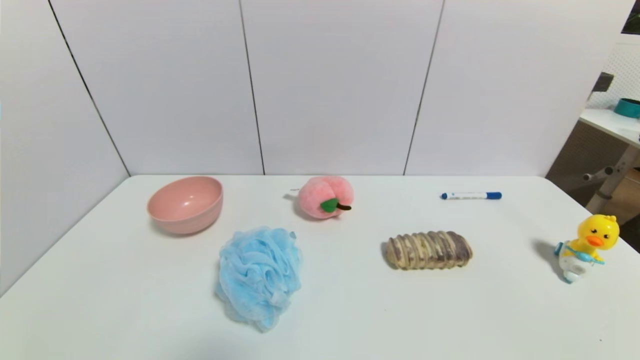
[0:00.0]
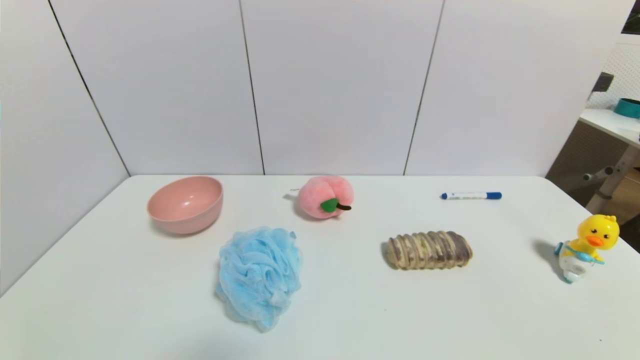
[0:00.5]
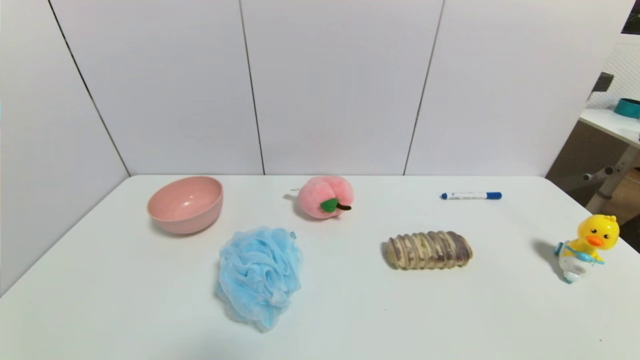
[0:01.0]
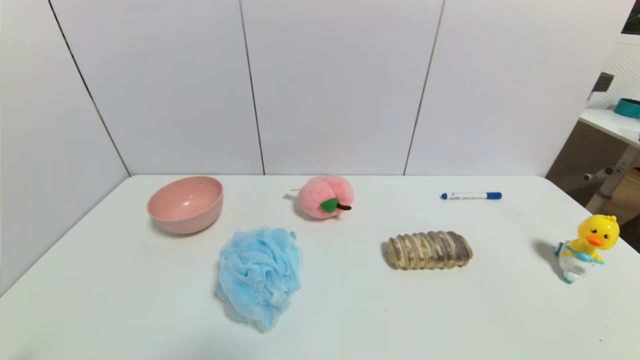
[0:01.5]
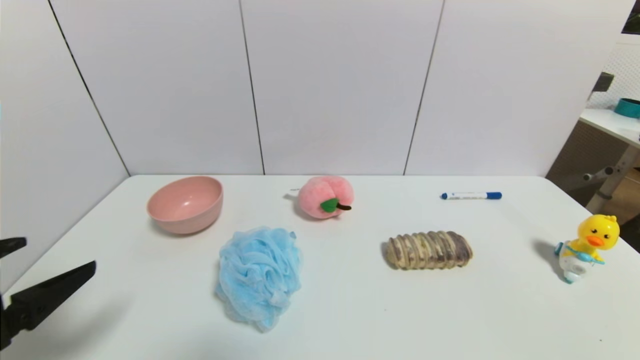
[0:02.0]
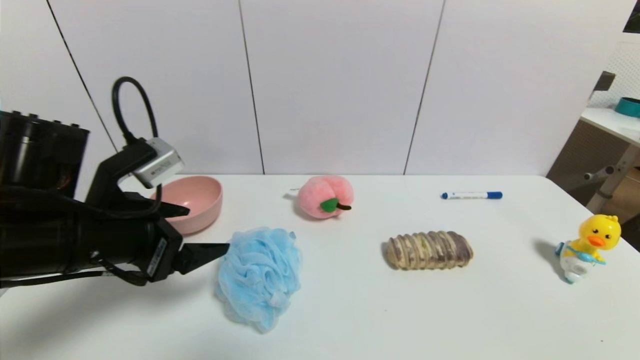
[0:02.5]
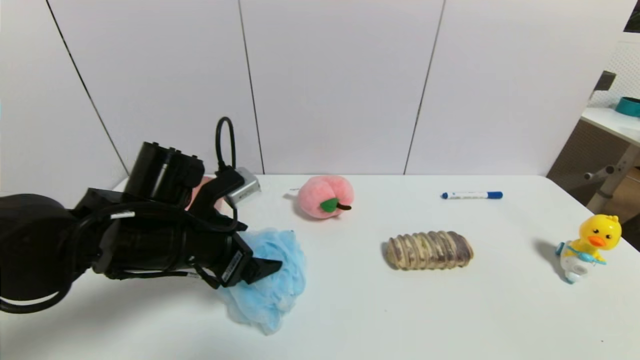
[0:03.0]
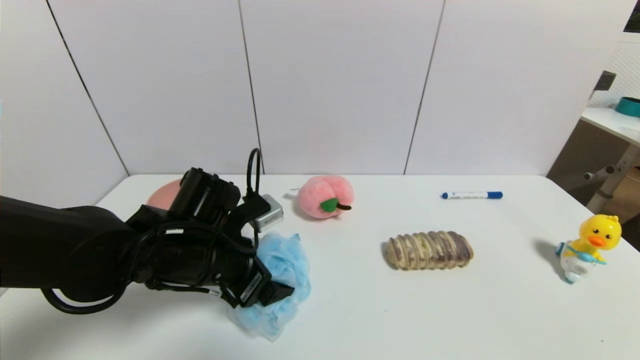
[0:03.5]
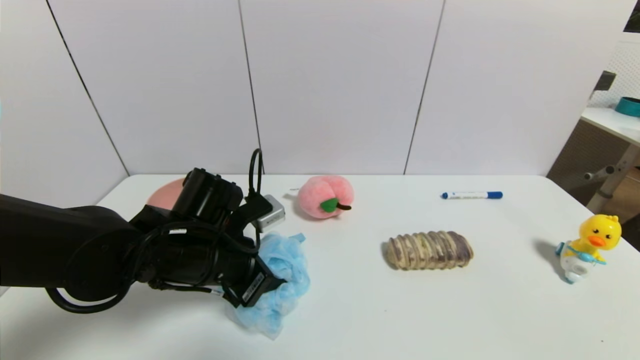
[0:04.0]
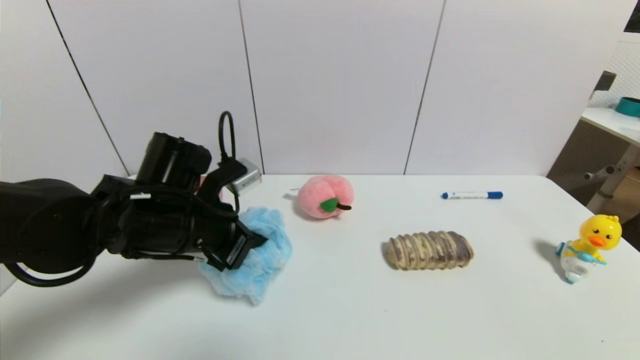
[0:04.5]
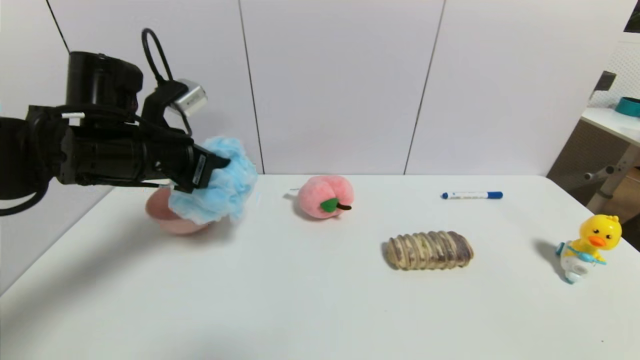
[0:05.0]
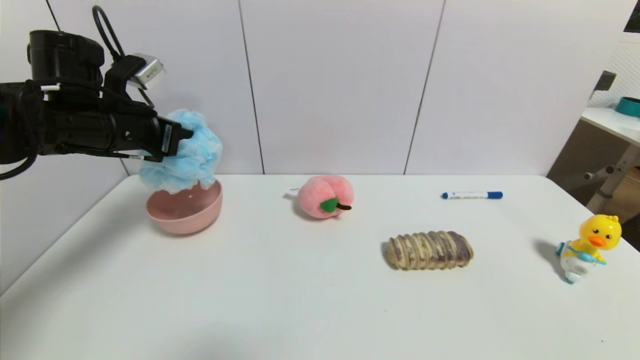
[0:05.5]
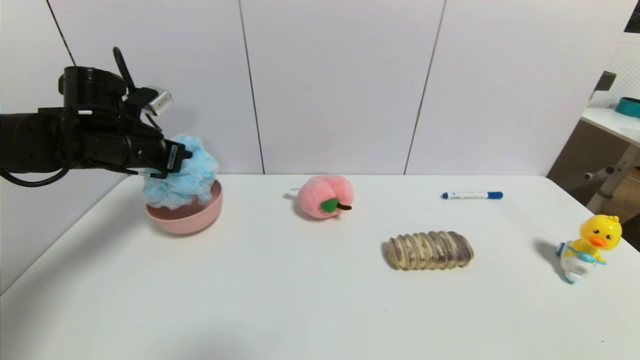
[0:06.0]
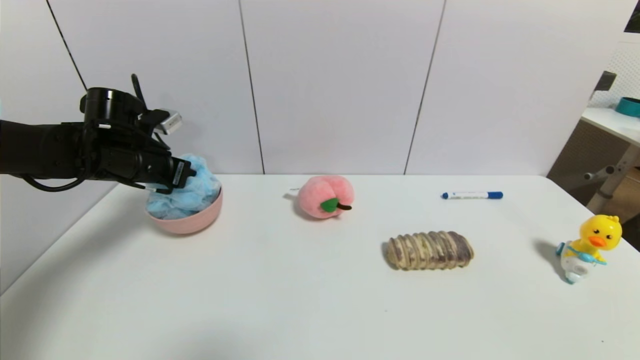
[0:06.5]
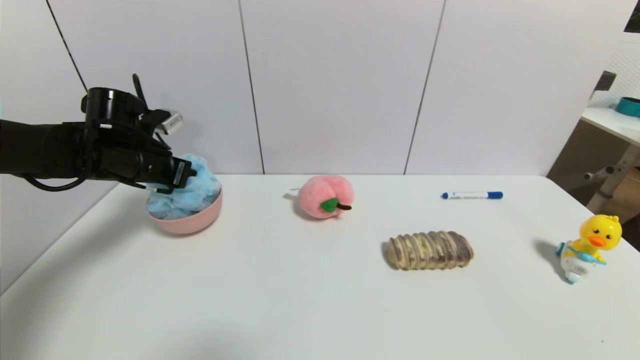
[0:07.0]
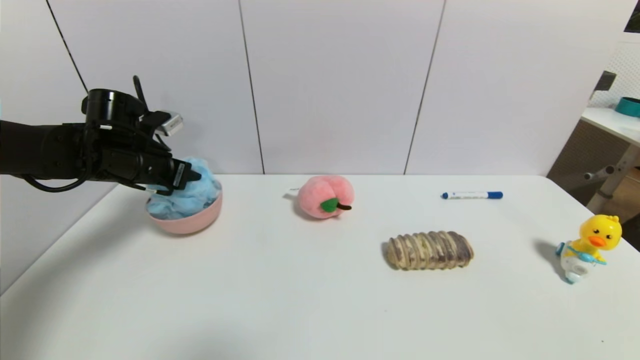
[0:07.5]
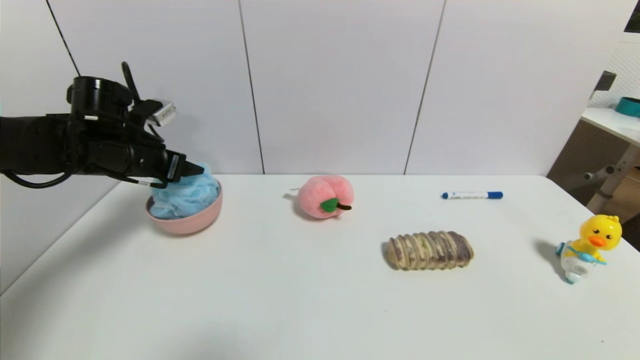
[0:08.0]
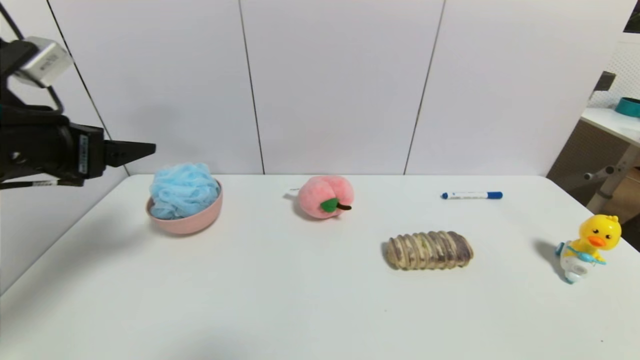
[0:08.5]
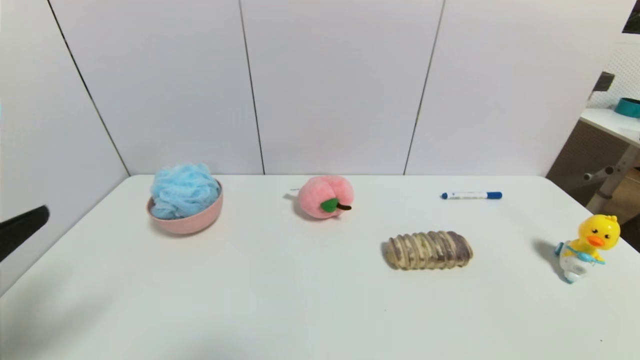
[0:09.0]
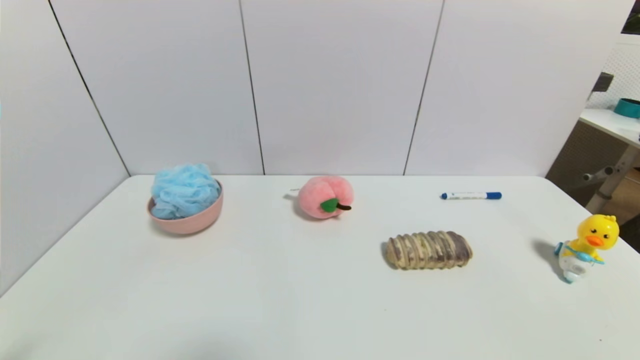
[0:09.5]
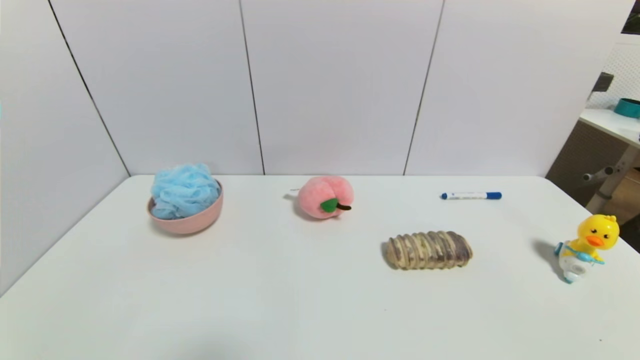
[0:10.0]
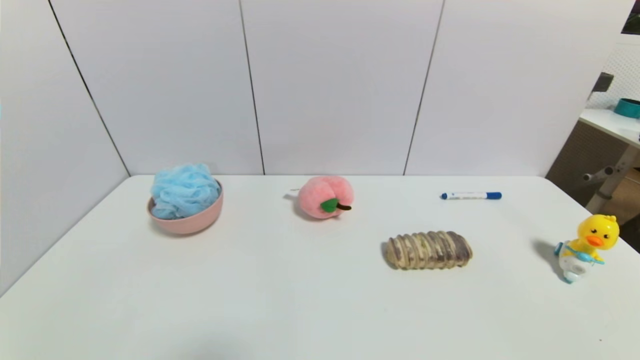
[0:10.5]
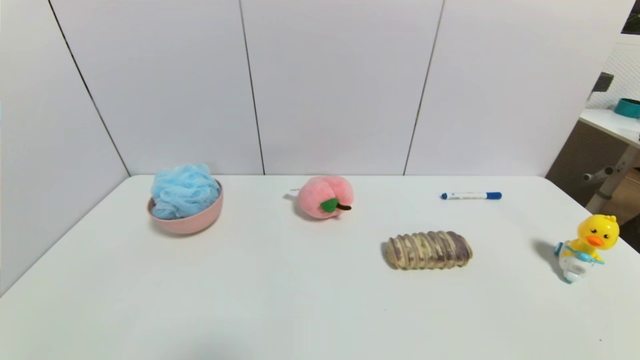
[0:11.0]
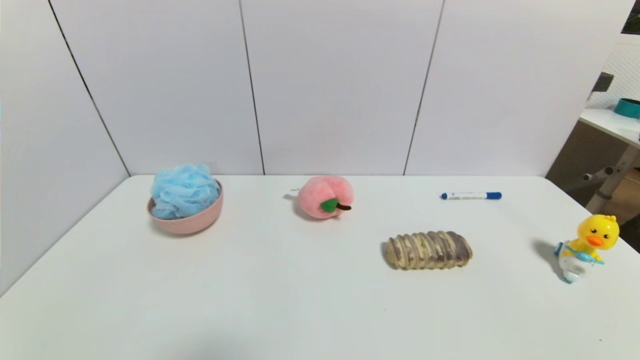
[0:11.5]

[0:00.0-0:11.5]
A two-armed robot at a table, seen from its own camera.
Task of the whole recording: use a gripper to pick the target object and place on the pink bowl.
Step, 0:00.0 to 0:04.0: Grasp the shower sphere with the left gripper.
Step, 0:04.5 to 0:08.0: Place the shower sphere on the pink bowl with the left gripper.
0:00.0 to 0:02.0: The left gripper moves upward and forward, some 20 cm.
0:02.0 to 0:04.0: The left gripper goes some 25 cm forward, to the right and downward, and closes up.
0:04.0 to 0:06.0: The left gripper goes roughly 20 cm to the left, forward and upward, and closes its fingers.
0:06.0 to 0:07.5: The left gripper opens its fingers.
0:07.5 to 0:09.5: The left gripper goes some 40 cm backward, and opens up.

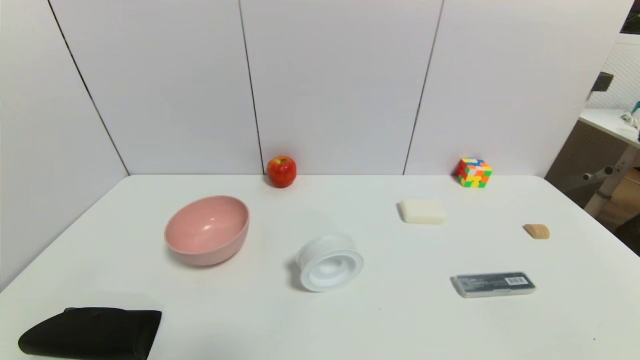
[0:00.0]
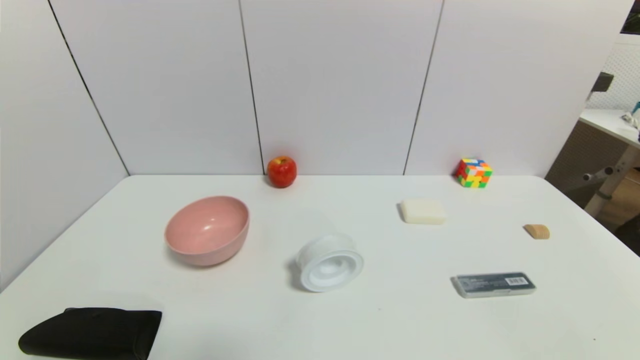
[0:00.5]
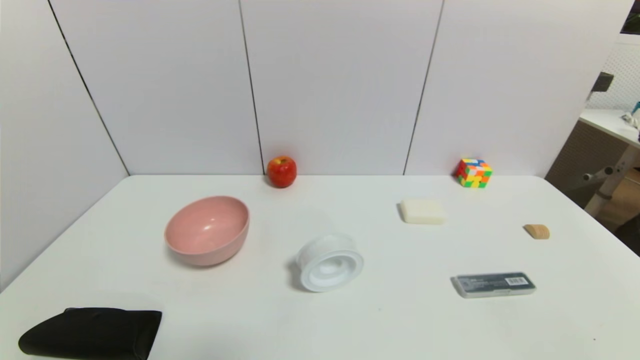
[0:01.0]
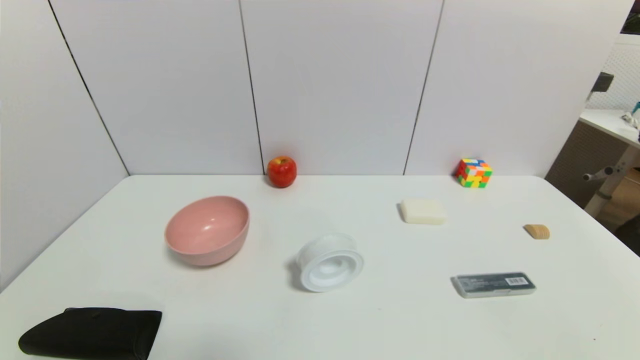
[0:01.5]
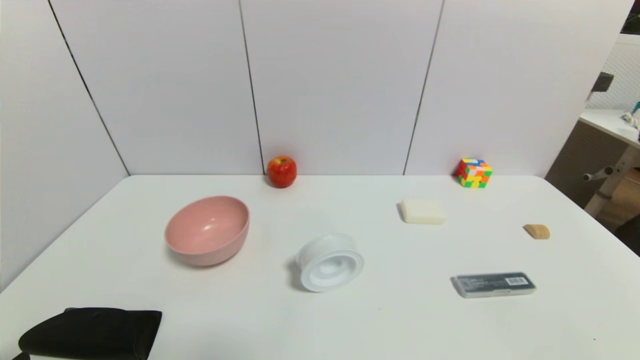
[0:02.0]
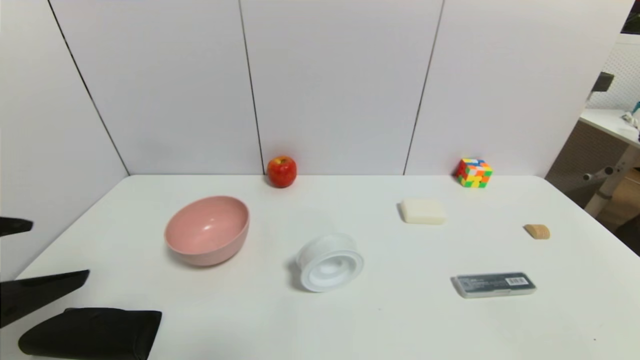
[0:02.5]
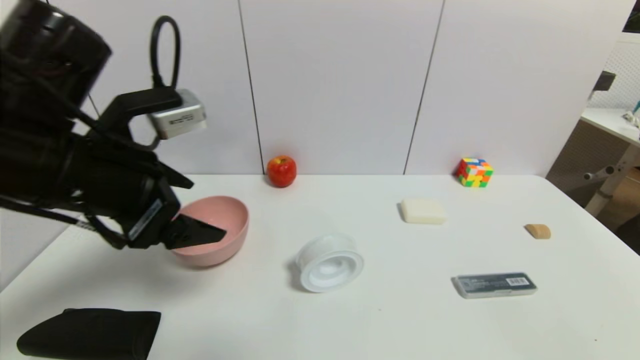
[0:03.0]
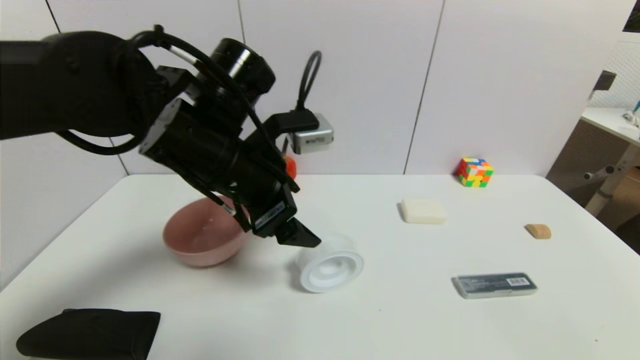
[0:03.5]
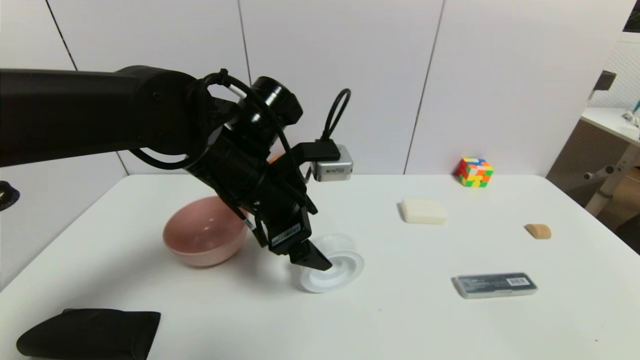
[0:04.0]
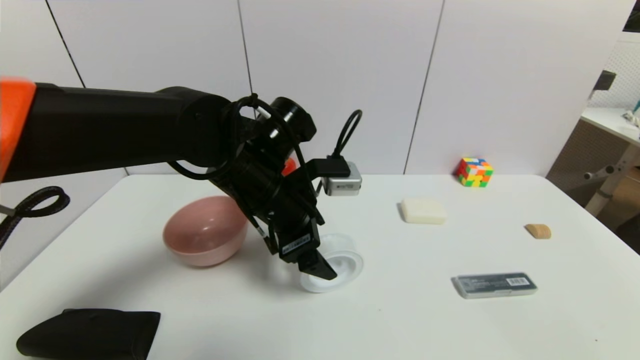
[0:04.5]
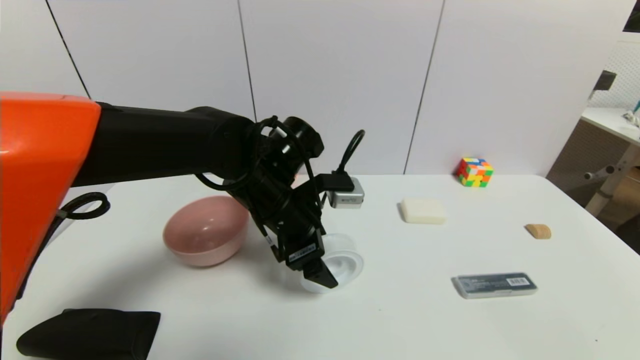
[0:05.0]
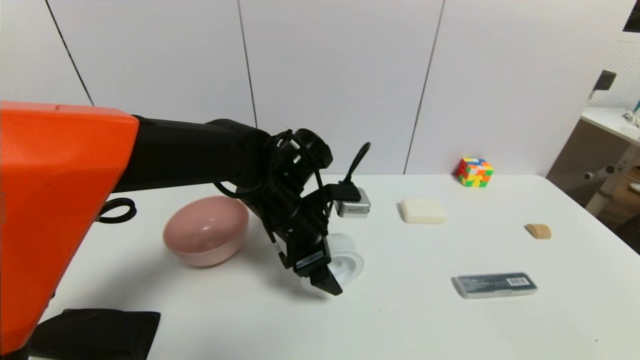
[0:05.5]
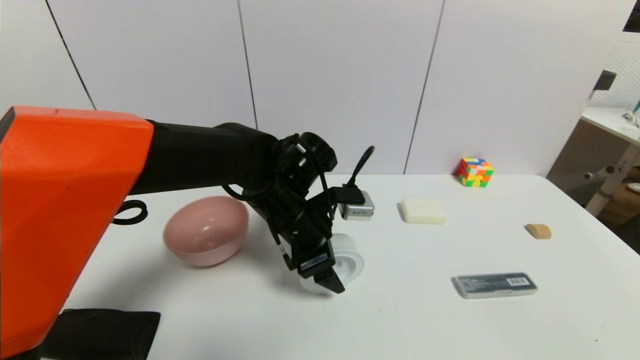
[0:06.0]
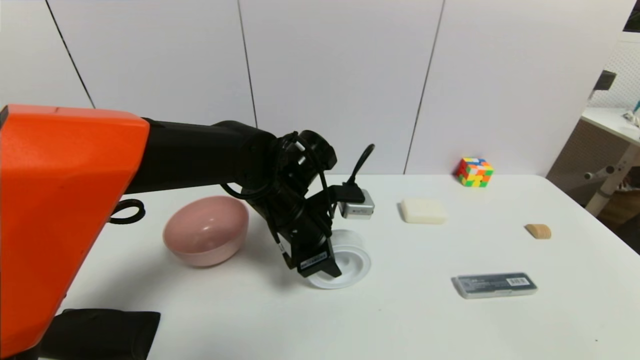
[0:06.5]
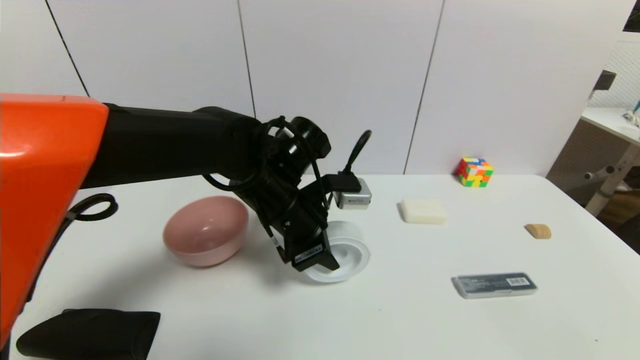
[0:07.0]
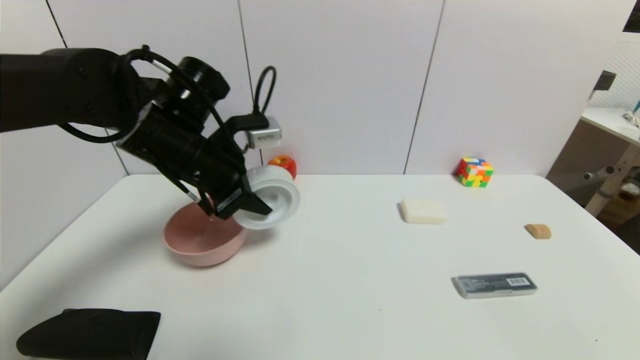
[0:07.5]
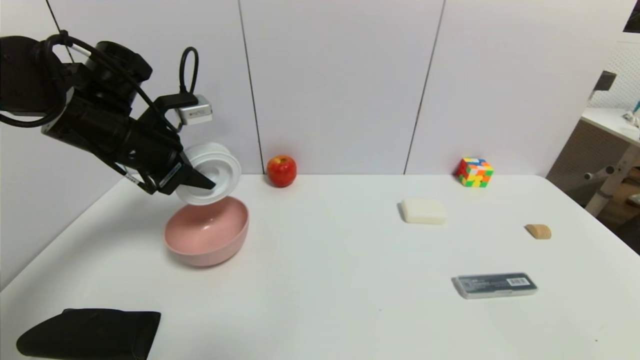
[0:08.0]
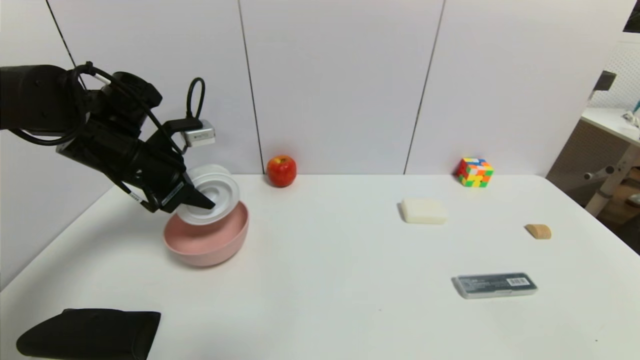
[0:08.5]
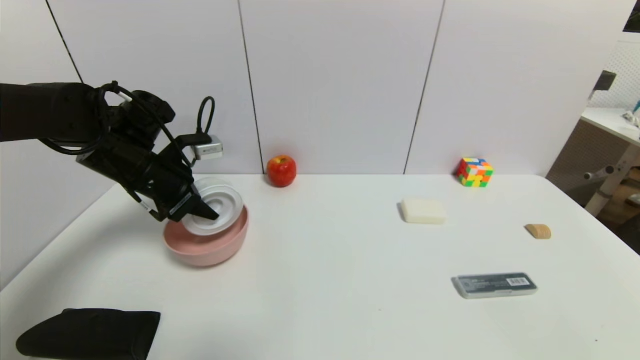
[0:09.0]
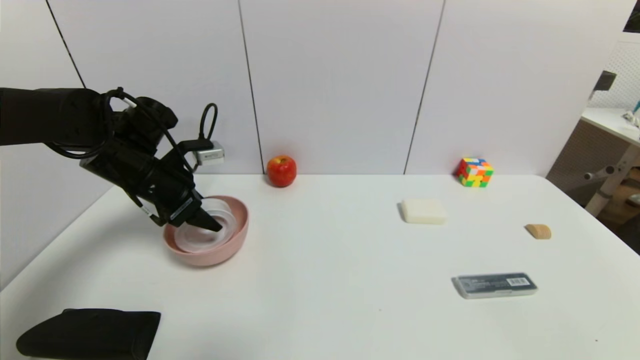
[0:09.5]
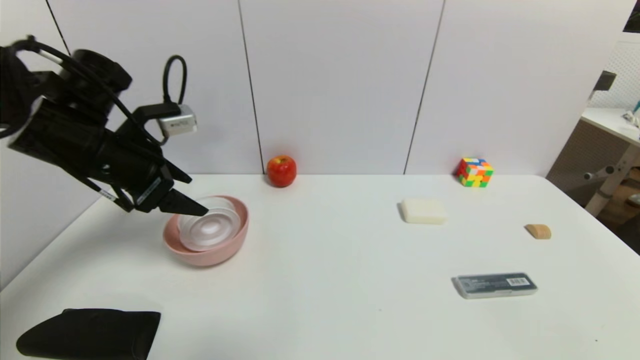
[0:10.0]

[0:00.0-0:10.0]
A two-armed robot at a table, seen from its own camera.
Task of the whole recording: use a gripper to pick the target object and place on the pink bowl.
Step, 0:00.0 to 0:06.0: Grasp the tape with the left gripper.
Step, 0:06.5 to 0:09.5: Place the tape on the pink bowl with the left gripper.
0:02.0 to 0:04.0: The left gripper goes roughly 35 cm forward and to the right.
0:04.0 to 0:06.0: The left gripper is displaced downward by some 5 cm.
0:06.0 to 0:08.0: The left gripper goes roughly 25 cm to the left and upward, and closes up.
0:08.0 to 0:10.0: The left gripper opens.
